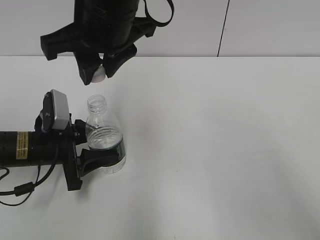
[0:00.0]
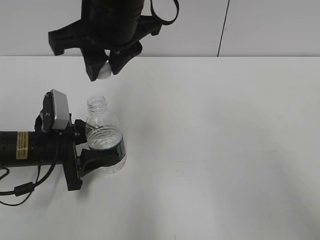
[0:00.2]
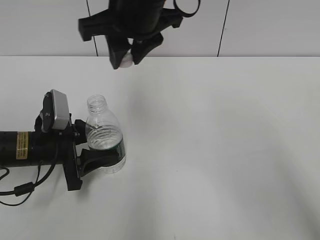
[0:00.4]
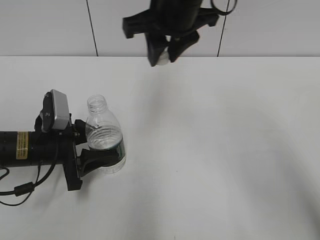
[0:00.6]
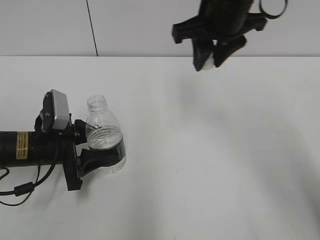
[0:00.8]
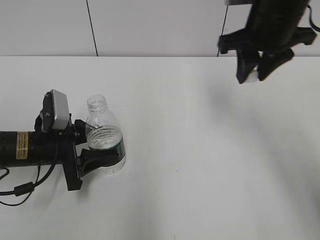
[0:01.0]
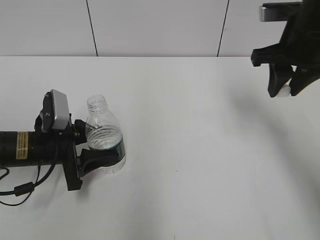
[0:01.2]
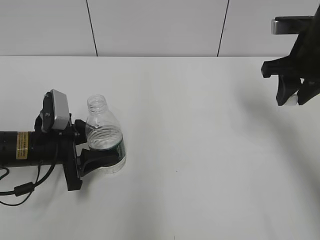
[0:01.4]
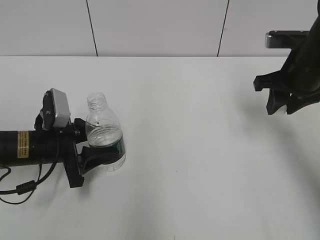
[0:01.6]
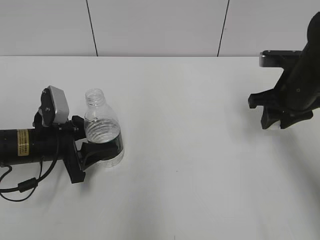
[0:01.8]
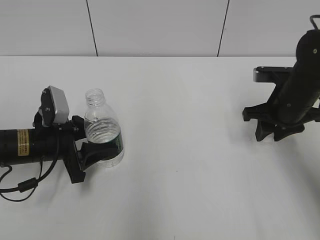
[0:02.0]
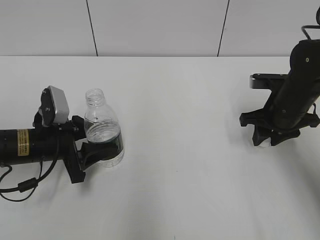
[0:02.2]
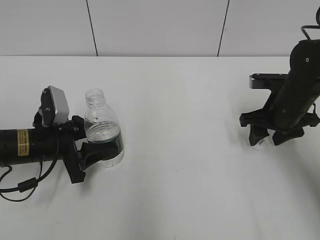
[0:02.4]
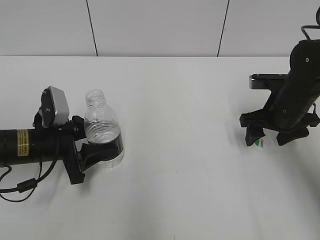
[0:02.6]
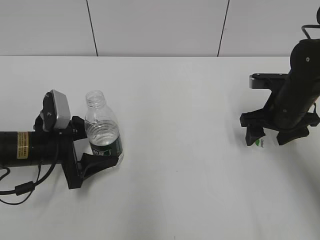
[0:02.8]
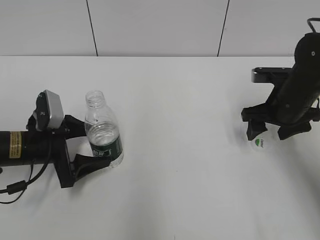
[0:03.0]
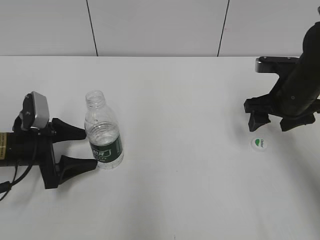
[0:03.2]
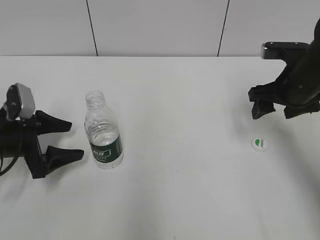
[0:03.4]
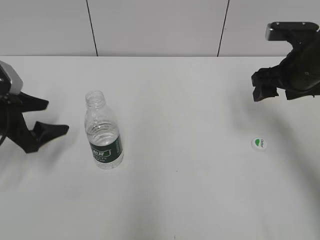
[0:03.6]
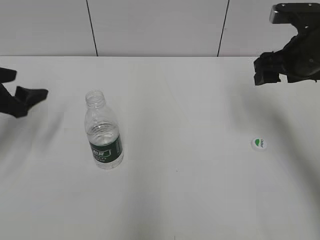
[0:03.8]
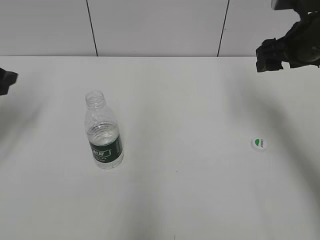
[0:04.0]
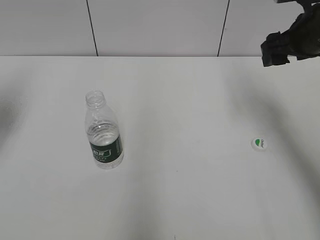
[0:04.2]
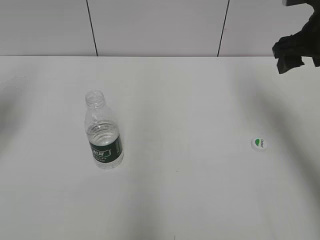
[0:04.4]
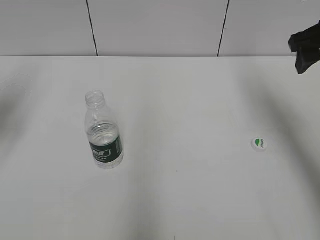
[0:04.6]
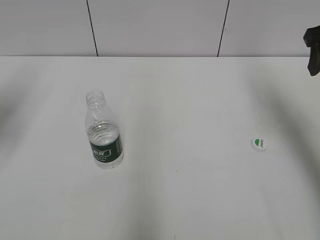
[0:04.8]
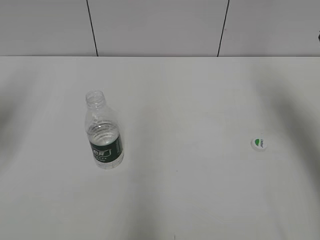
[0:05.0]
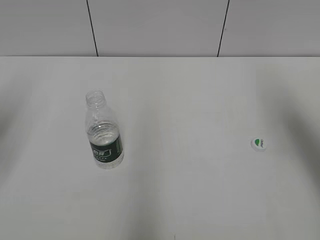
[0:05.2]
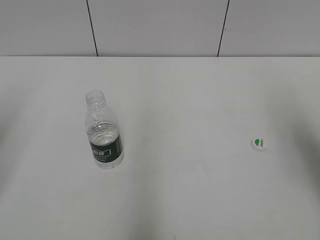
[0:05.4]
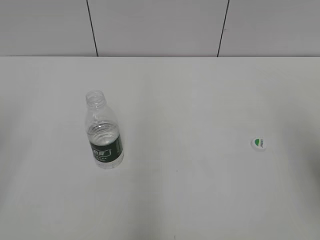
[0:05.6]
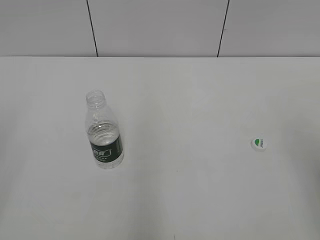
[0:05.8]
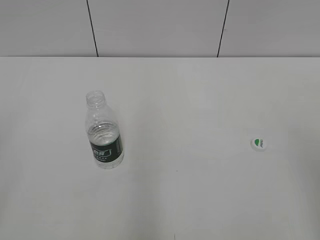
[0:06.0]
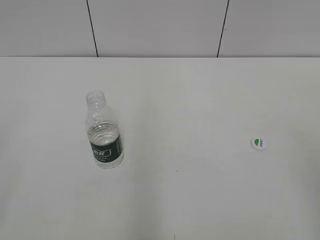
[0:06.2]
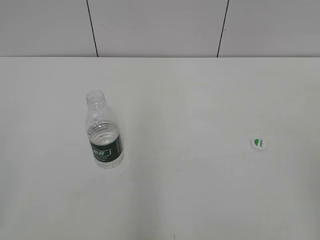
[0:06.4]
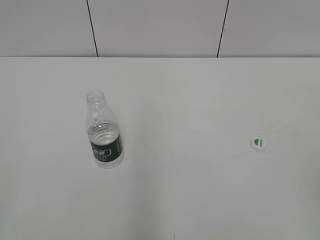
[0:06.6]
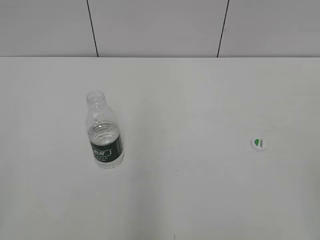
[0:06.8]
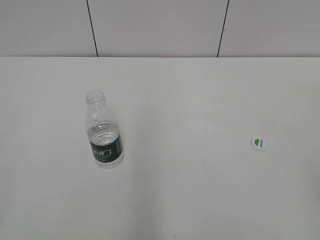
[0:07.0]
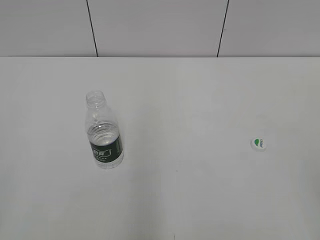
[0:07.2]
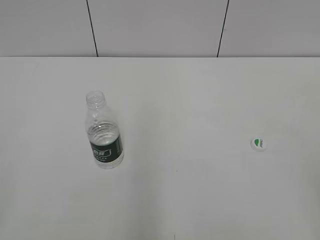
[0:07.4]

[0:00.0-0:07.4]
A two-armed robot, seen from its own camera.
Step, 0:00.0 to 0:02.4: Place the bottle cap on the table with the right gripper.
Step, 0:02.6 to 0:03.2: Place the bottle on the table with the left gripper.
0:00.0 to 0:01.4: The right gripper goes some 30 cm to the right.
0:01.4 to 0:03.0: The left gripper opens up; the right gripper moves downward, some 10 cm, and opens.
0:03.0 to 0:04.4: The right gripper shifts roughly 15 cm upward. The left gripper travels upward and to the left by approximately 25 cm.
0:04.4 to 0:06.0: Both grippers travel together backward, about 25 cm.
